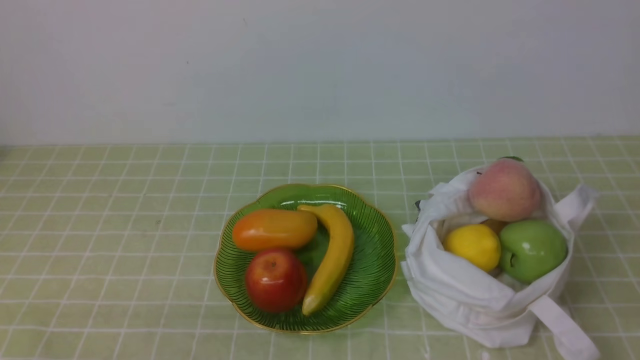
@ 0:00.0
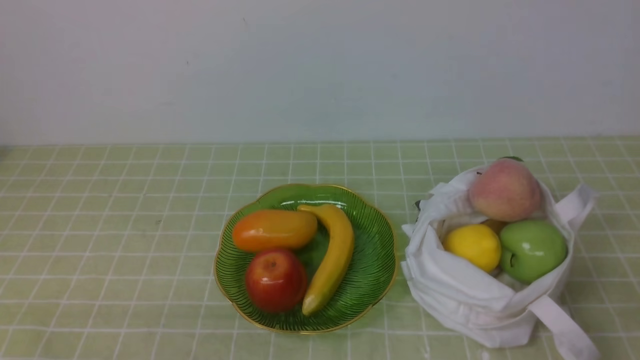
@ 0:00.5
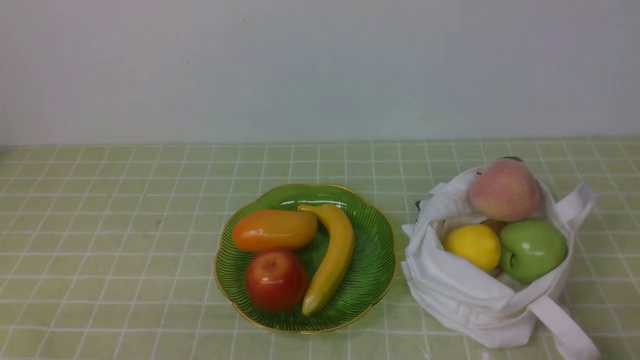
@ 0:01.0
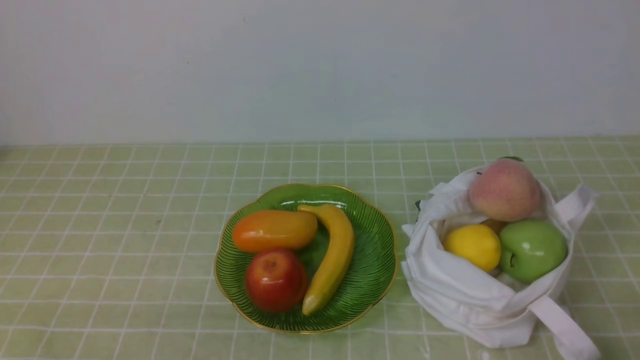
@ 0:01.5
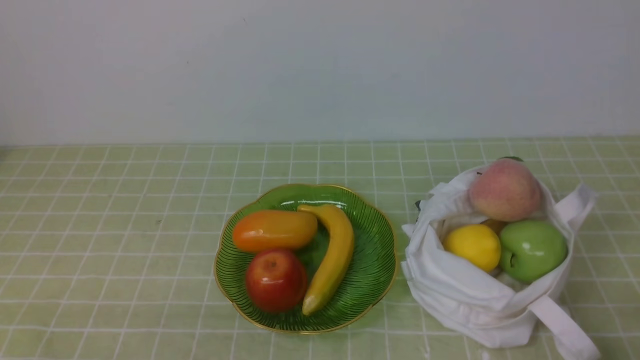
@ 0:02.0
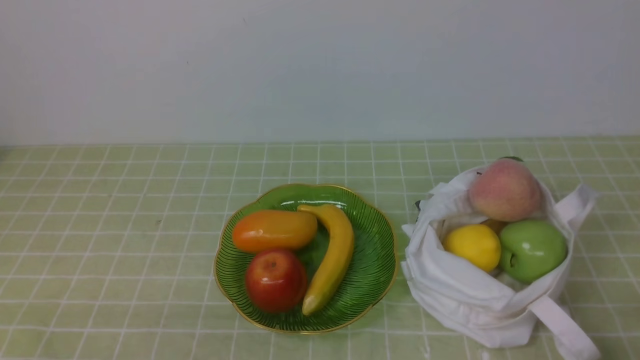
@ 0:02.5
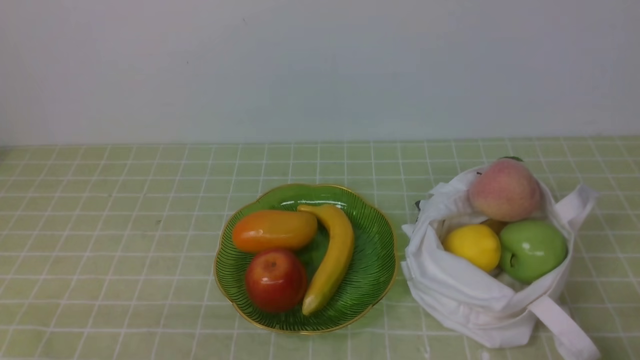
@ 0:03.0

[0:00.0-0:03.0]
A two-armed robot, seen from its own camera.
0:01.5 to 0:03.0: Neither gripper changes place.

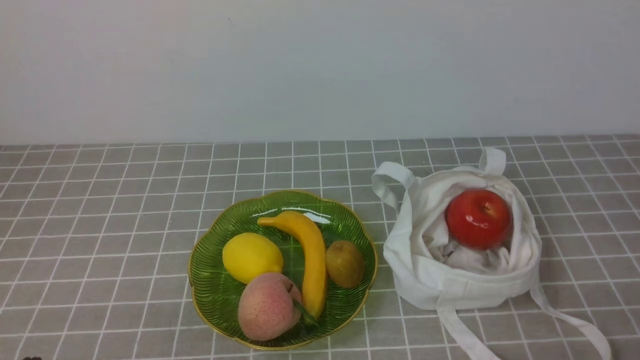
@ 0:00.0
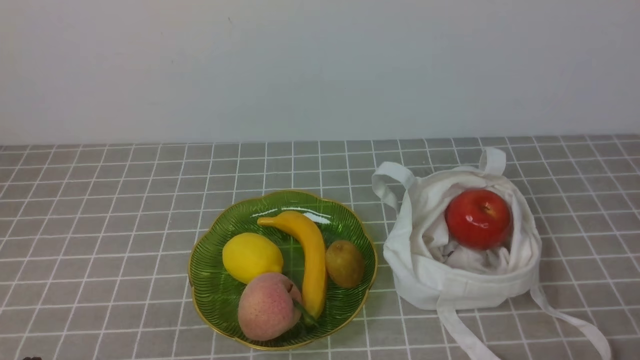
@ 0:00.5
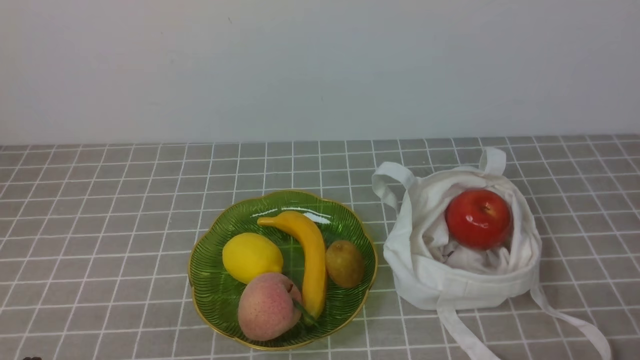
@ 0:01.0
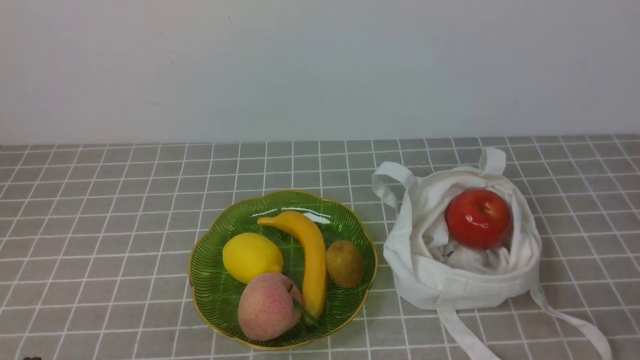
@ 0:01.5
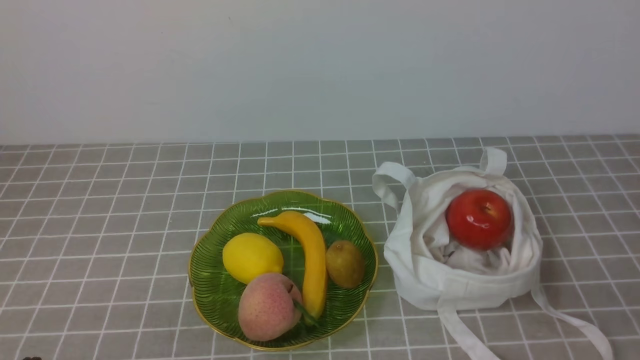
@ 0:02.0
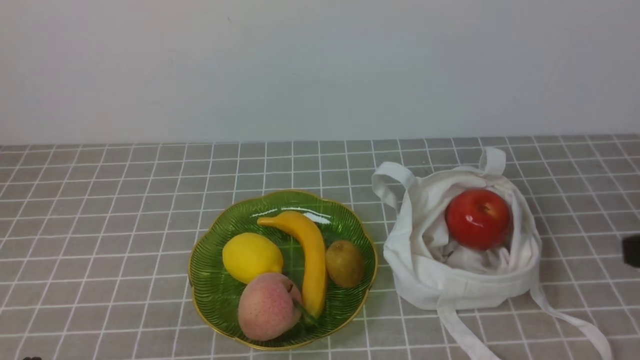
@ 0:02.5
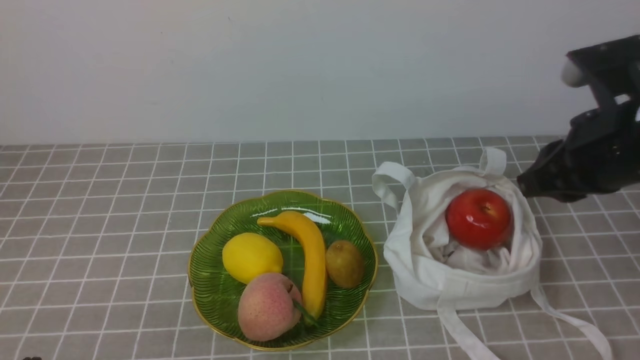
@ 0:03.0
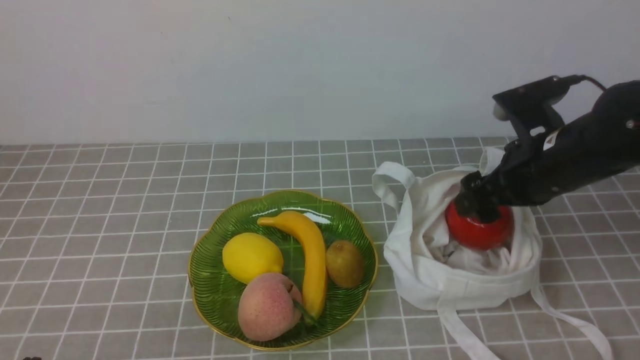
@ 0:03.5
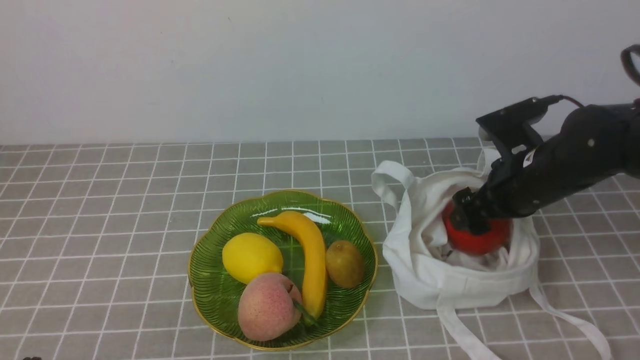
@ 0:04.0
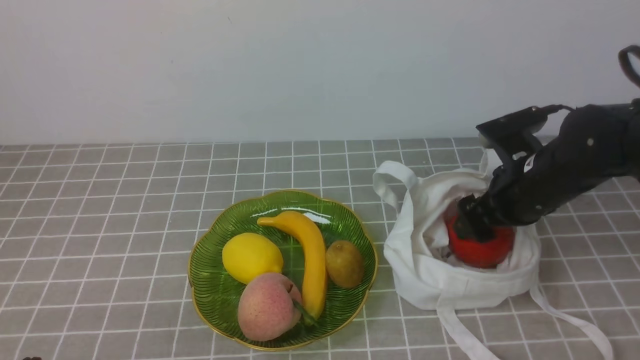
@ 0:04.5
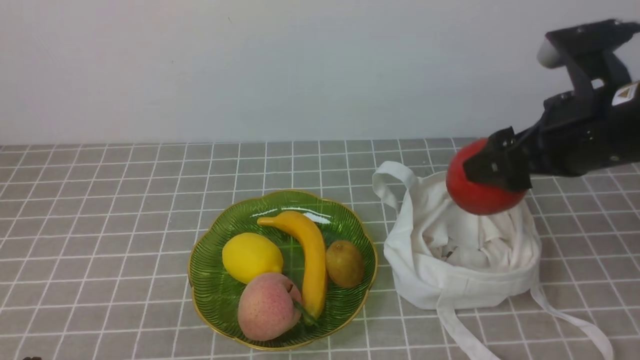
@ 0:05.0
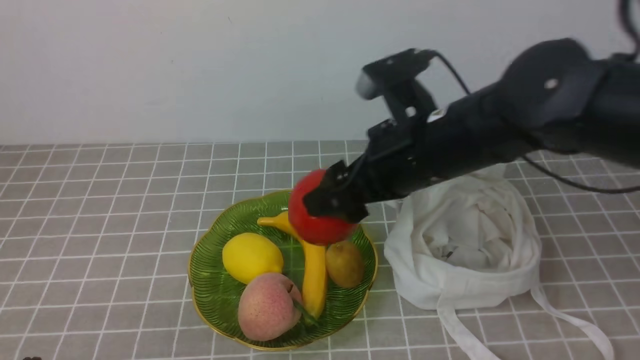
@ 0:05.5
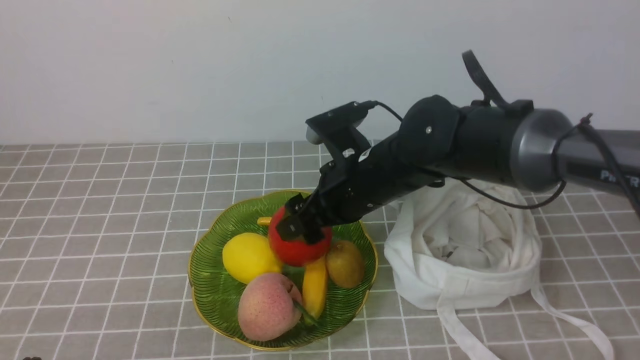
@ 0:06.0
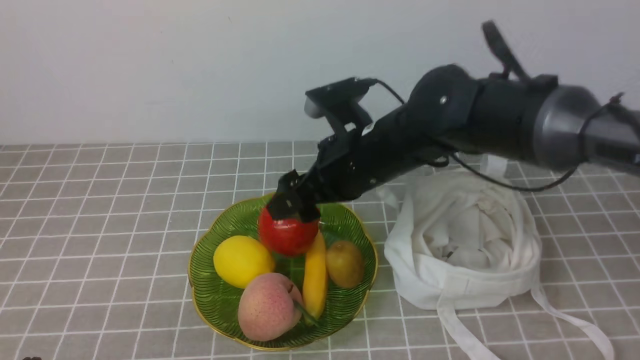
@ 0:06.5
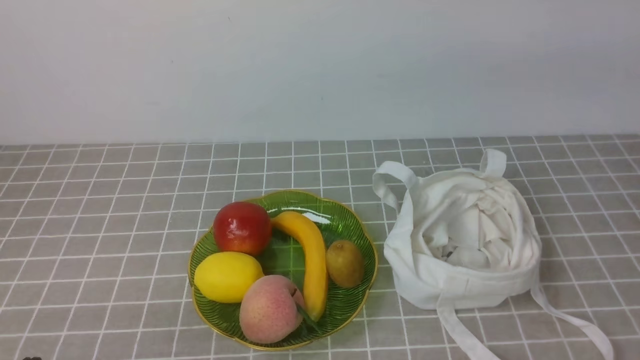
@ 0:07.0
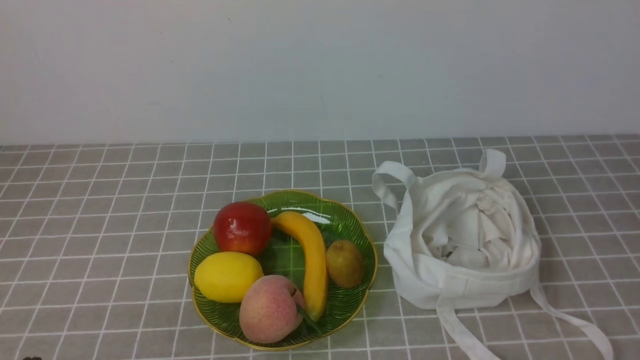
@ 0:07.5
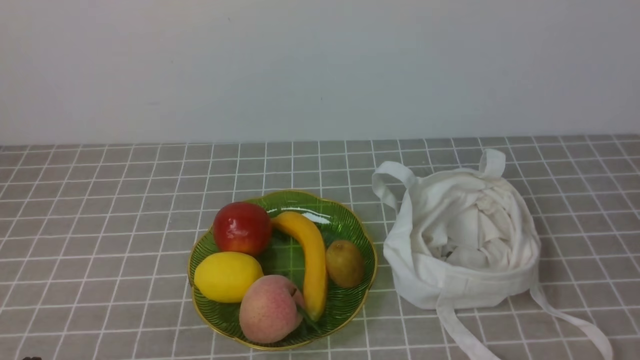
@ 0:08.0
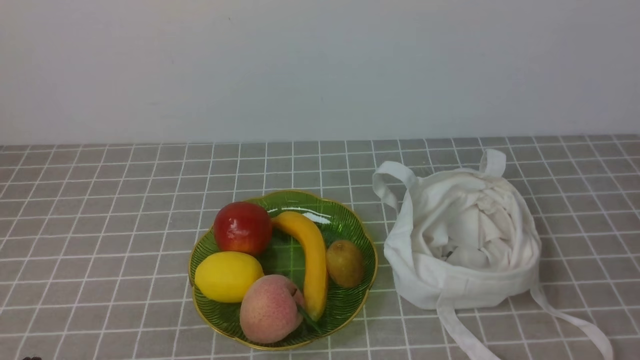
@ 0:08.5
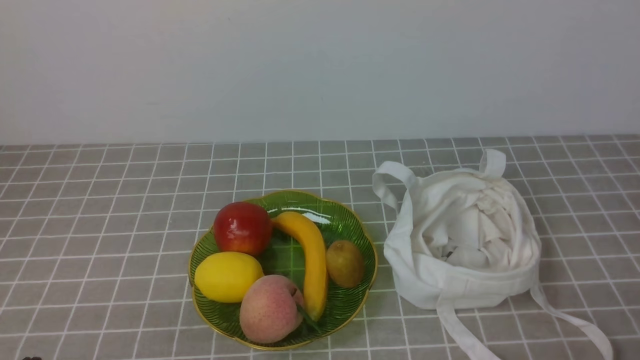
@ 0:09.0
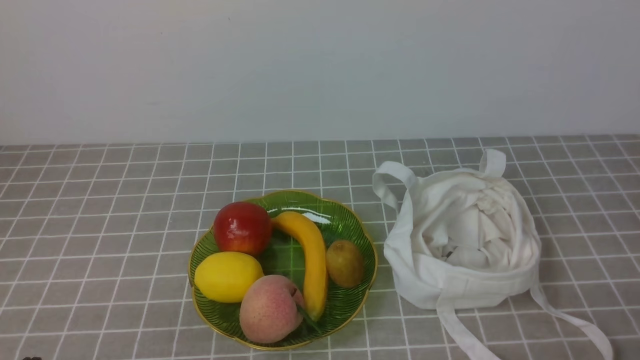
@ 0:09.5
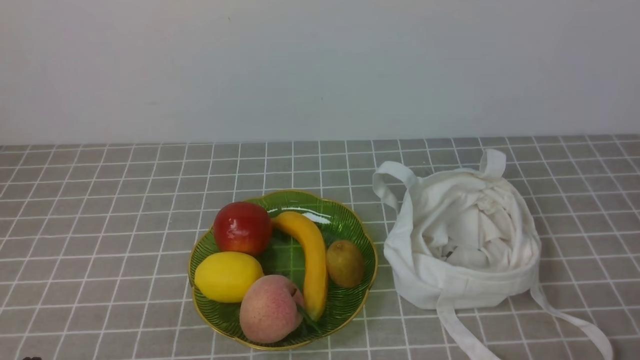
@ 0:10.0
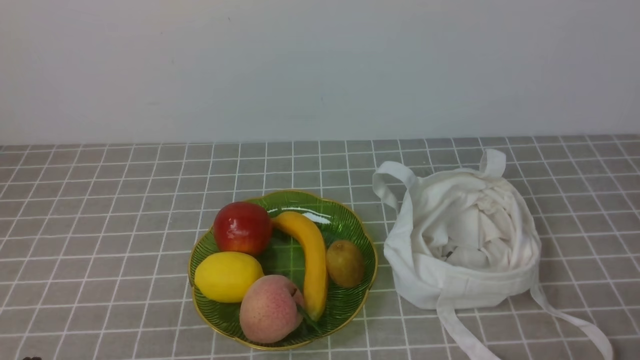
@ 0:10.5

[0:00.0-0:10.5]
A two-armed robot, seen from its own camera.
Step, 0:00.0 to 0:04.5: use the right arm to grab a pomegranate from the bag.
Step, 0:05.0 to 0:06.0: use the right arm to put the pomegranate into the empty plate on the left.
0:02.0 to 0:04.0: The right gripper travels forward by roughly 30 cm, and opens its fingers.
0:04.0 to 0:06.5: The right gripper travels to the left and upward by roughly 20 cm.
0:06.5 to 0:08.5: The right gripper goes roughly 40 cm backward and to the right, and closes.
